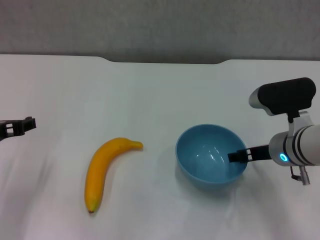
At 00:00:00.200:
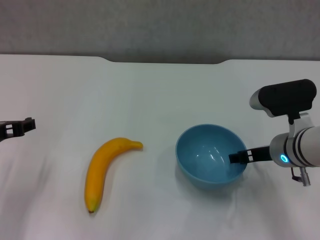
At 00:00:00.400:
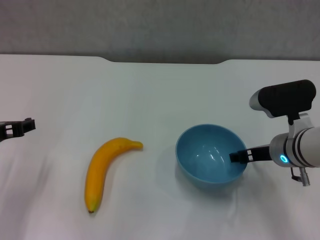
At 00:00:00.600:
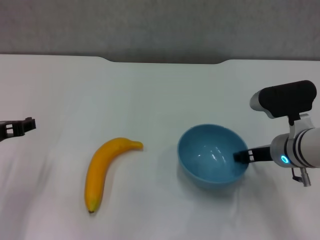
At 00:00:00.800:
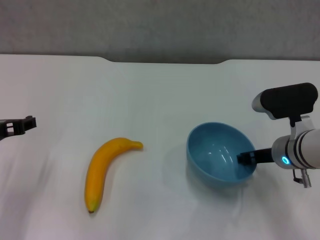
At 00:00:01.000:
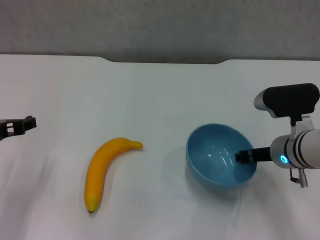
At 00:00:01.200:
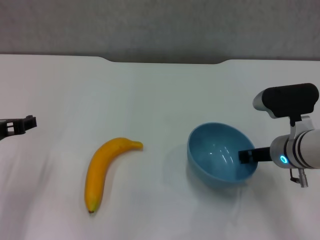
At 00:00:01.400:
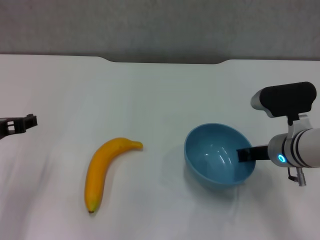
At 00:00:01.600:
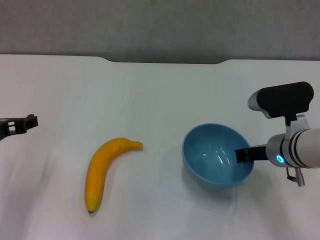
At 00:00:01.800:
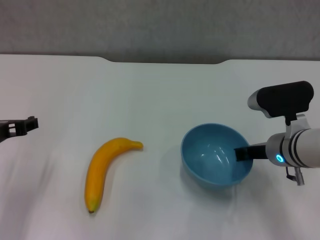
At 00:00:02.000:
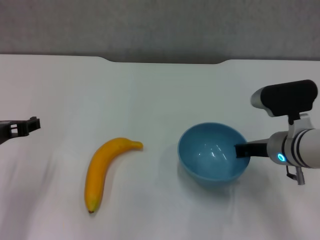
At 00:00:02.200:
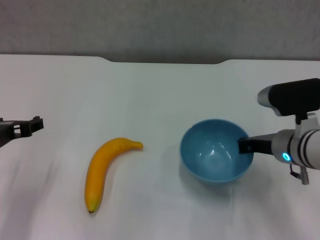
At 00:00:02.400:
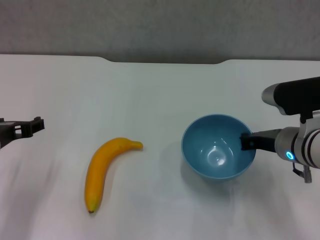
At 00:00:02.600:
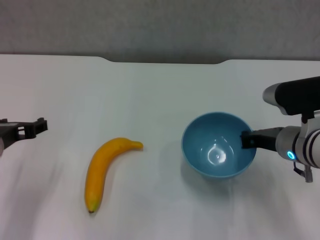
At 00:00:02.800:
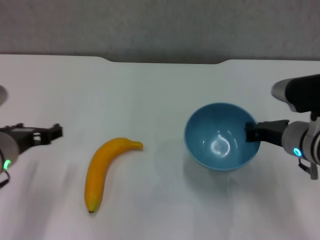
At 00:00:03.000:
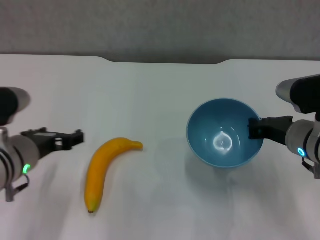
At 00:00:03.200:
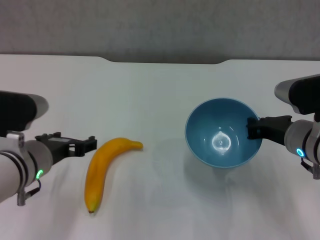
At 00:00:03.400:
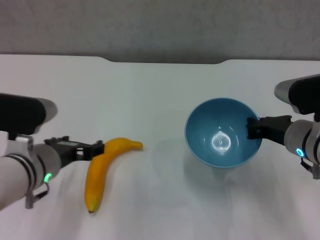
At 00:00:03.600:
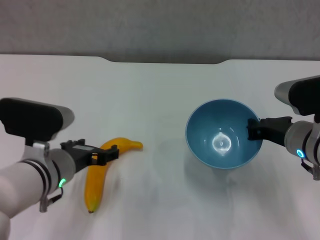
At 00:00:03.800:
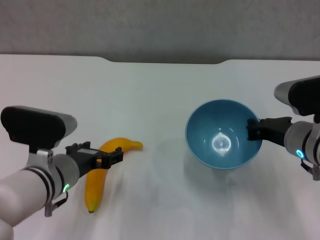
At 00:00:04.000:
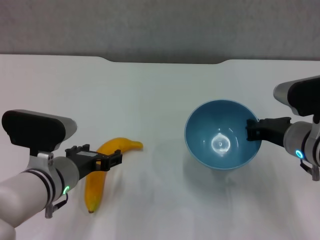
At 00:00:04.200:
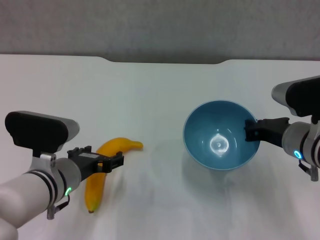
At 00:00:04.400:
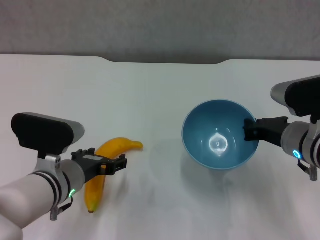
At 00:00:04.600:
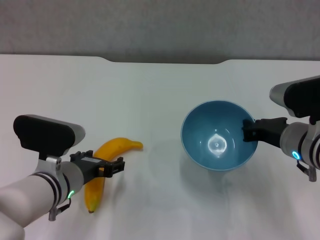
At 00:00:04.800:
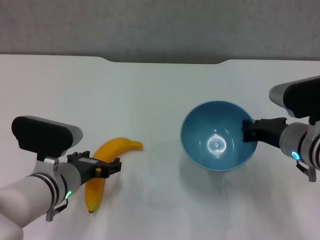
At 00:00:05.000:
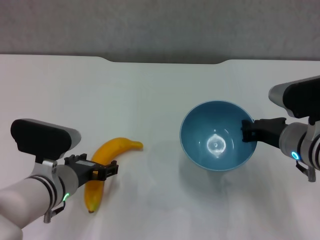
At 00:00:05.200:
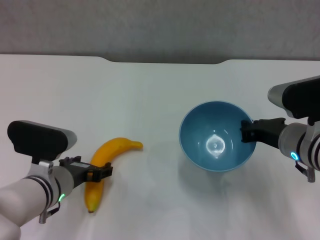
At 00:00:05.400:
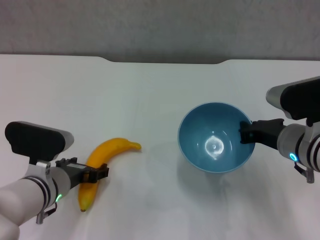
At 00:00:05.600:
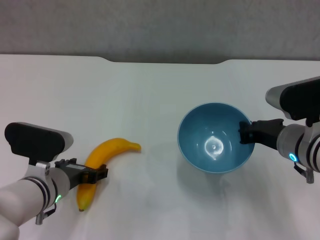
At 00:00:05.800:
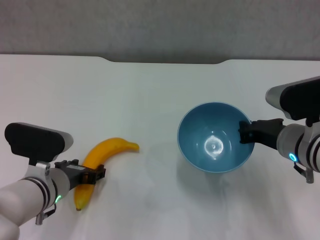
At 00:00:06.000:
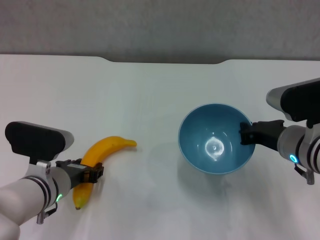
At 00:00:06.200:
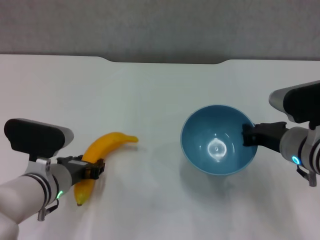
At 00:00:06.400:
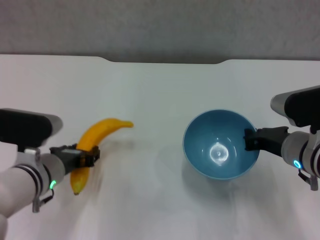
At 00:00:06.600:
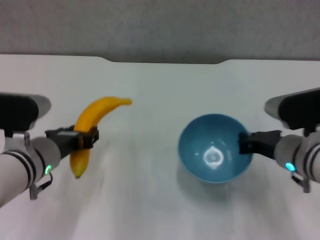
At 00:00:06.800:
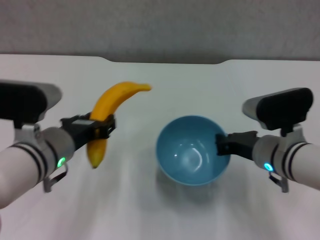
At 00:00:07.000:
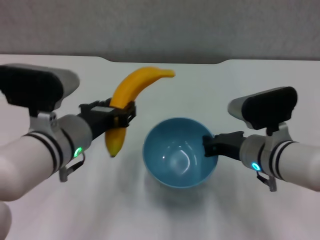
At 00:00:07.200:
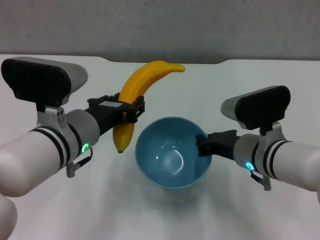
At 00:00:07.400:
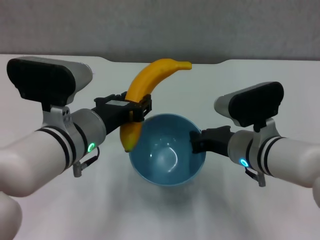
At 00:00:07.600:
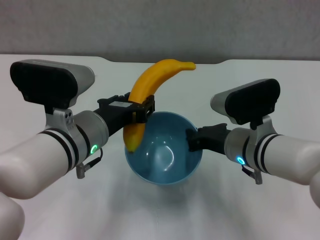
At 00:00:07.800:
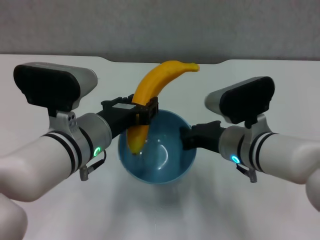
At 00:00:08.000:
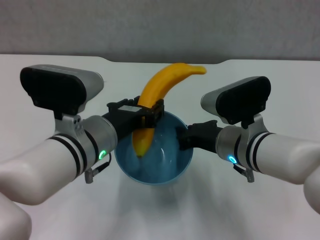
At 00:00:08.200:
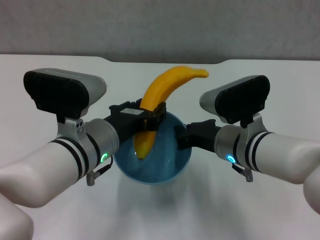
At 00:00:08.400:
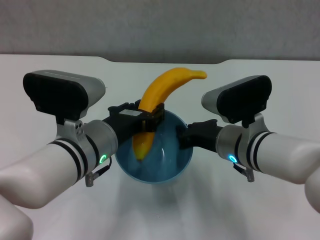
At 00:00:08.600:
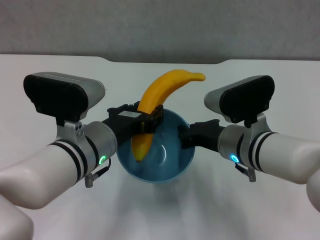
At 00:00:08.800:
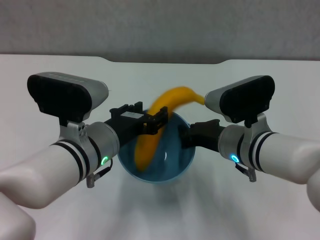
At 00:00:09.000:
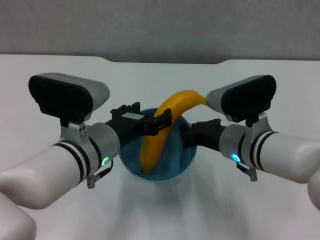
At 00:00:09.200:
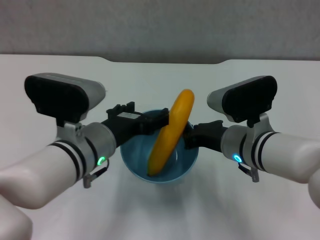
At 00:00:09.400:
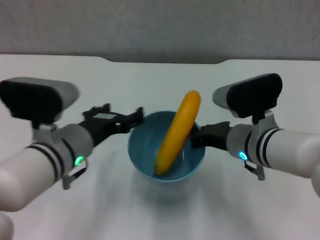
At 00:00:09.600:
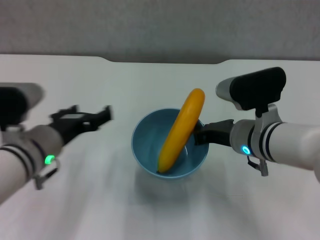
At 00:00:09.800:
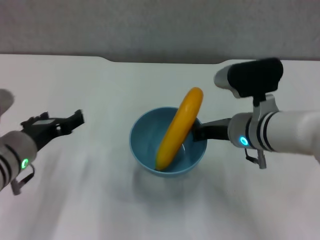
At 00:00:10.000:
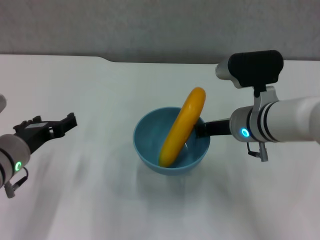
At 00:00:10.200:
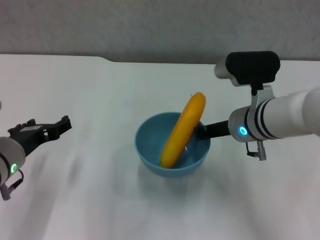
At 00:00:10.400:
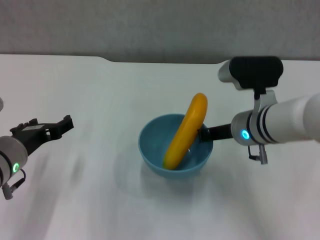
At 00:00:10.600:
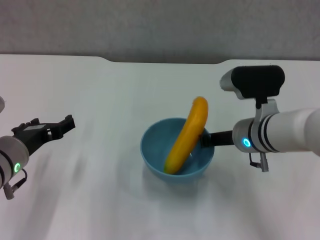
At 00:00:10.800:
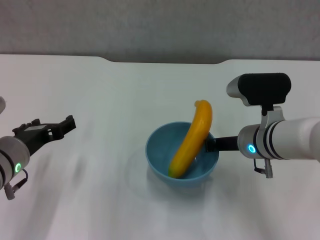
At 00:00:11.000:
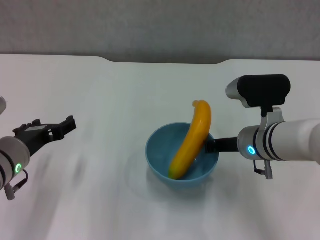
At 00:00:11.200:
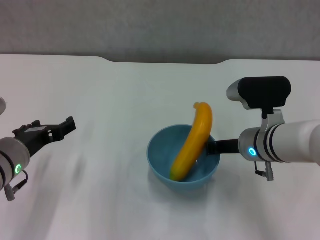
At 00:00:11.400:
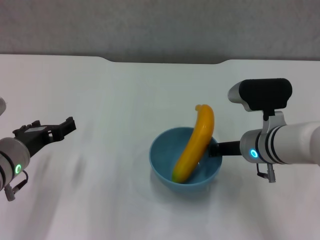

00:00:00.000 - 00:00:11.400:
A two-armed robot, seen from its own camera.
Step, 00:00:00.000 - 00:00:02.000: Grasp the blue bowl with right gripper.
Step, 00:00:02.200 - 00:00:02.800: Lift the blue bowl with right gripper.
Step, 00:00:03.000 - 00:00:06.000: Grasp the banana with left gripper.
Step, 00:00:06.200 - 00:00:09.000: Place the banana in the blue bowl with left gripper.
00:00:00.000 - 00:00:01.400: The right gripper closes its fingers.
00:00:01.400 - 00:00:02.800: The grippers stay close to where they were, moving slightly.
00:00:02.800 - 00:00:04.200: The left gripper goes roughly 10 cm to the right and downward.
00:00:04.200 - 00:00:05.600: The grippers stay close to where they were, moving slightly.
00:00:05.600 - 00:00:07.200: The left gripper goes about 15 cm upward and to the right, and closes its fingers; the right gripper moves to the left, about 5 cm.
00:00:08.600 - 00:00:10.000: The left gripper goes approximately 10 cm to the left, and opens its fingers.

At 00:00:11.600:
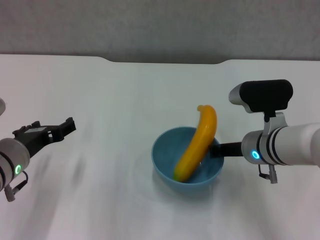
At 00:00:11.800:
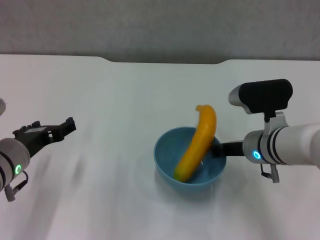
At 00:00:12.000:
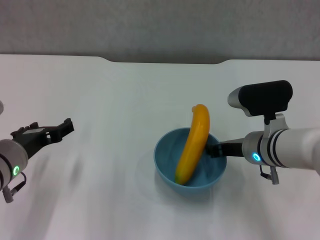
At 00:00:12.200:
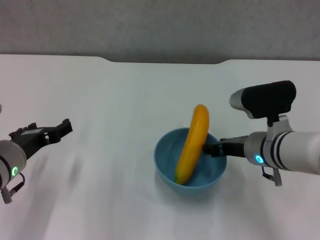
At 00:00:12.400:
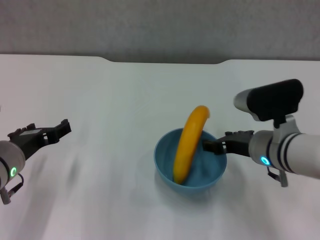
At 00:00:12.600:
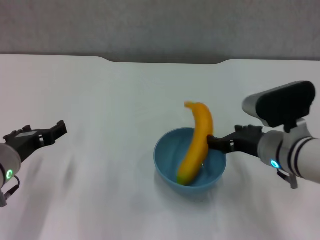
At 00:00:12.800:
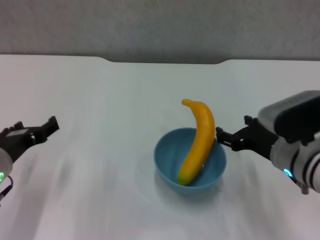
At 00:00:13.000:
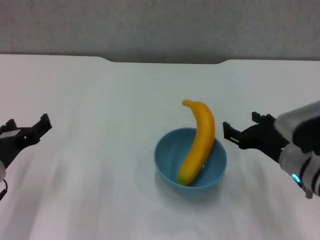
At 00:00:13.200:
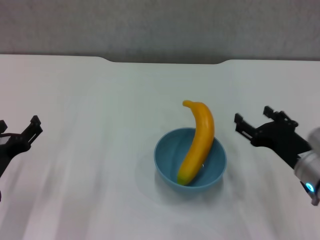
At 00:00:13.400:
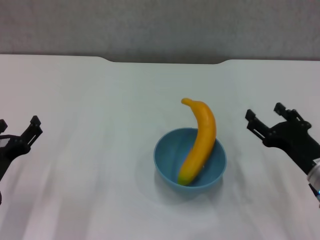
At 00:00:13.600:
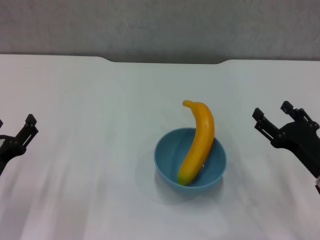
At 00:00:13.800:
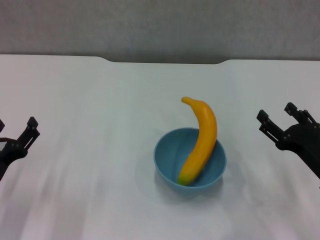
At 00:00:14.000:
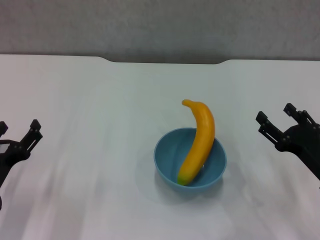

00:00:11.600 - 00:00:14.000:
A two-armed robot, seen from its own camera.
00:00:11.600 - 00:00:12.800: The right gripper travels backward by approximately 5 cm, and opens up.
00:00:12.800 - 00:00:14.000: The left gripper moves downward, about 5 cm, while the right gripper shifts some 10 cm to the right and downward.
